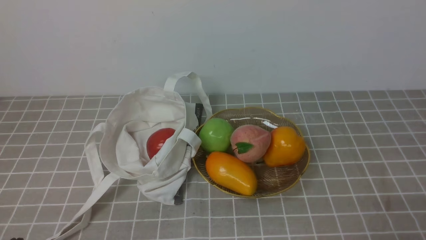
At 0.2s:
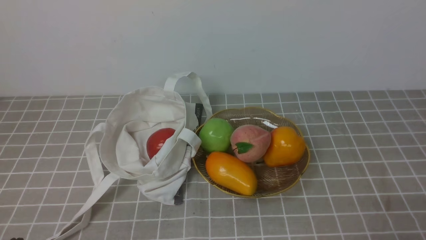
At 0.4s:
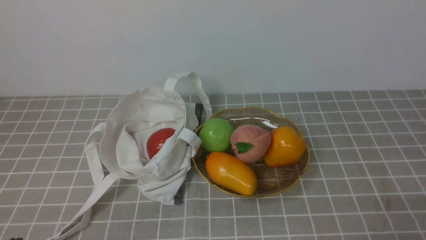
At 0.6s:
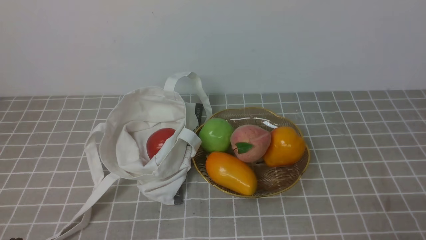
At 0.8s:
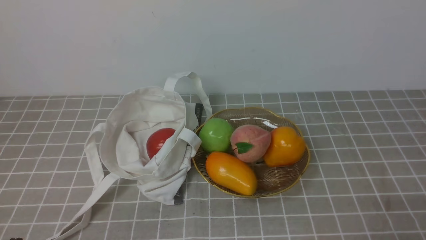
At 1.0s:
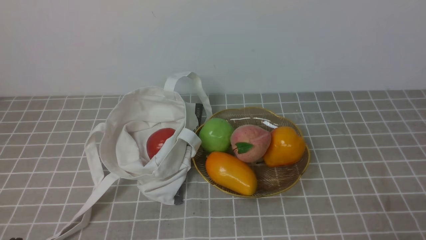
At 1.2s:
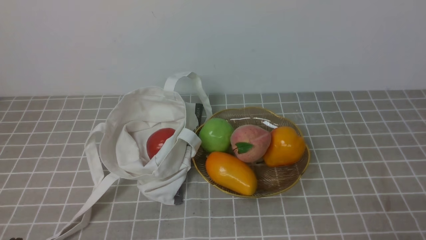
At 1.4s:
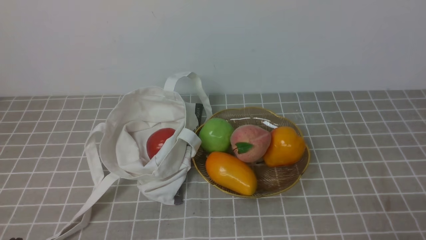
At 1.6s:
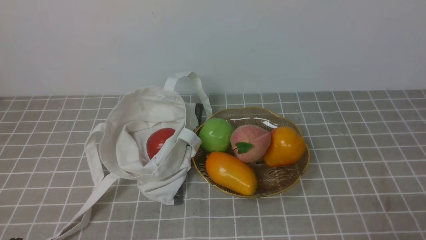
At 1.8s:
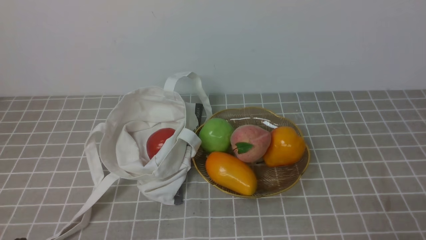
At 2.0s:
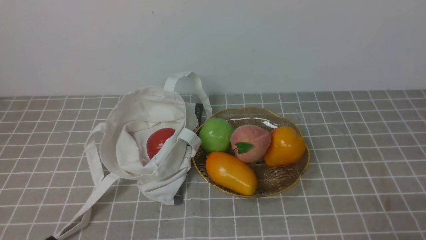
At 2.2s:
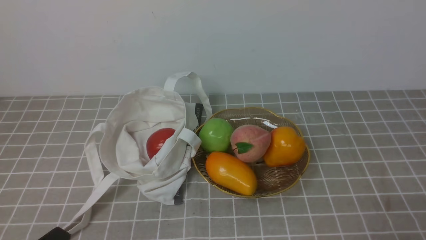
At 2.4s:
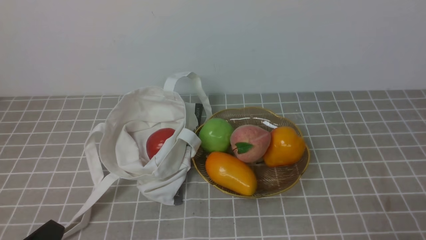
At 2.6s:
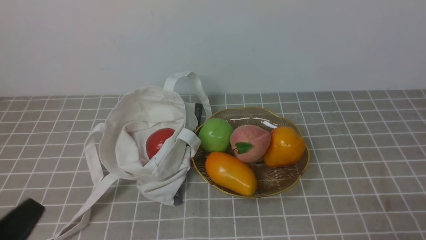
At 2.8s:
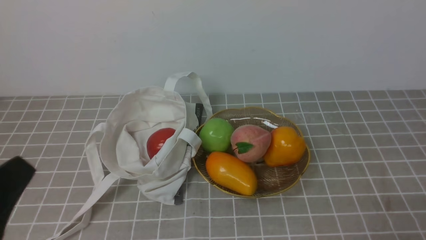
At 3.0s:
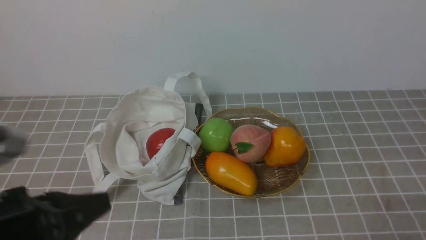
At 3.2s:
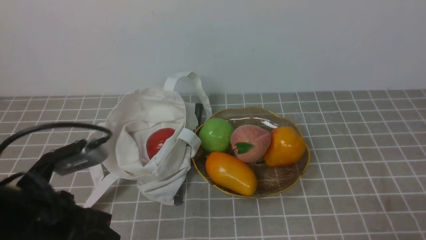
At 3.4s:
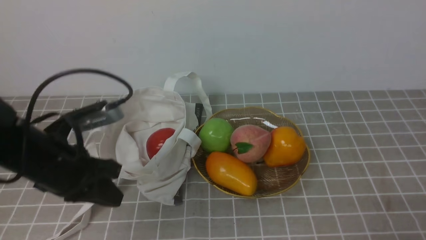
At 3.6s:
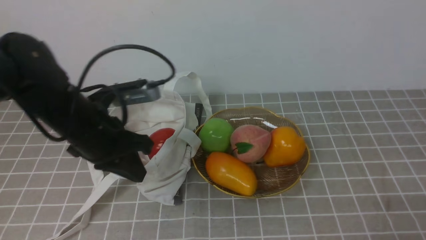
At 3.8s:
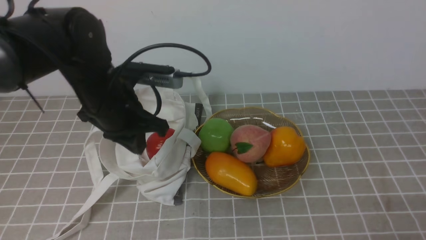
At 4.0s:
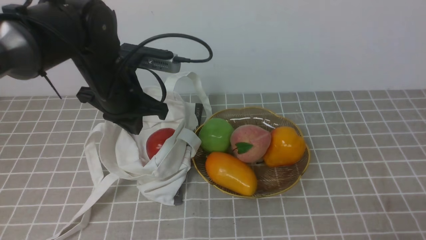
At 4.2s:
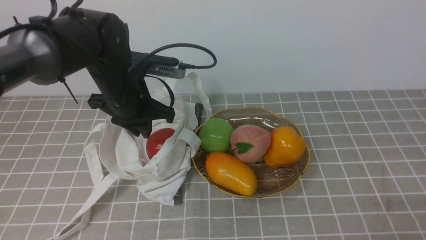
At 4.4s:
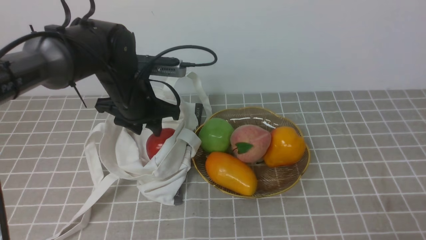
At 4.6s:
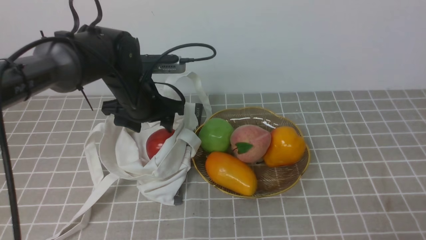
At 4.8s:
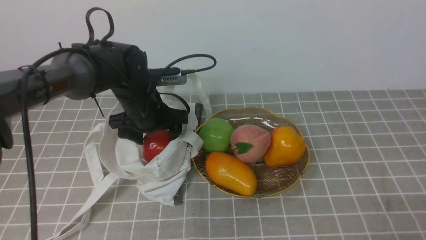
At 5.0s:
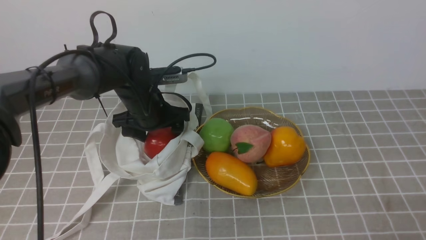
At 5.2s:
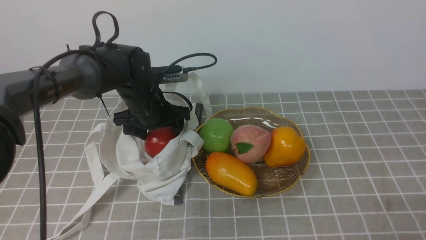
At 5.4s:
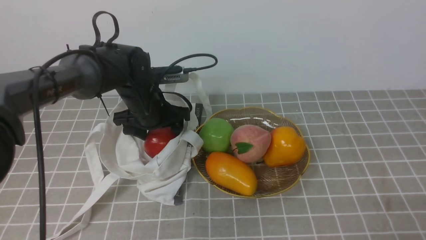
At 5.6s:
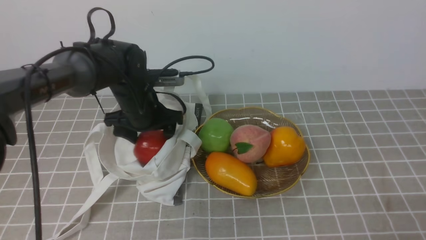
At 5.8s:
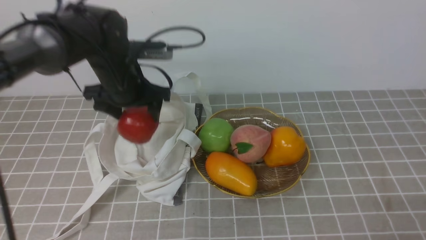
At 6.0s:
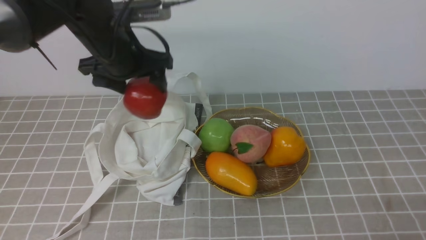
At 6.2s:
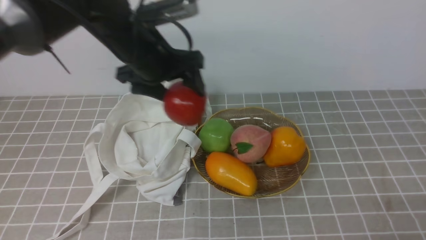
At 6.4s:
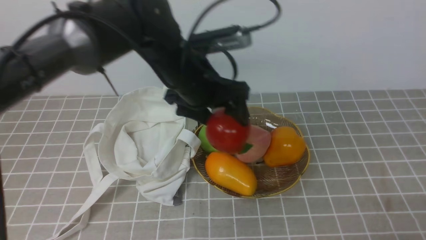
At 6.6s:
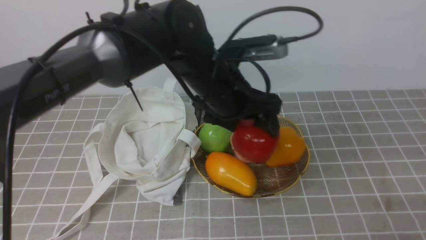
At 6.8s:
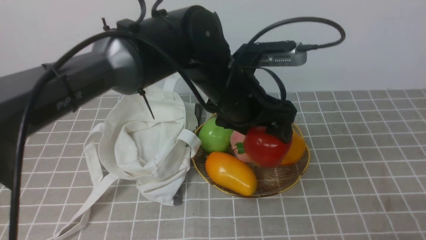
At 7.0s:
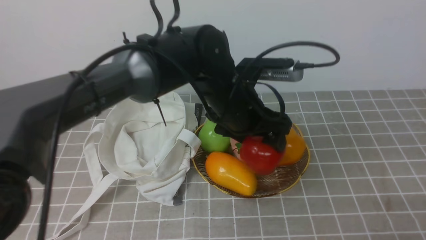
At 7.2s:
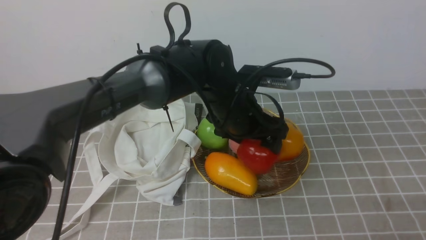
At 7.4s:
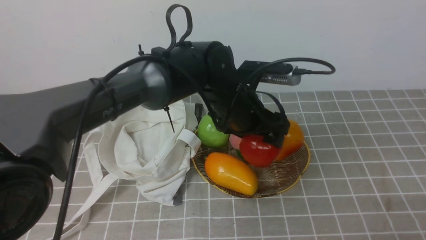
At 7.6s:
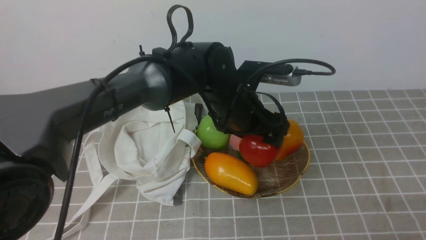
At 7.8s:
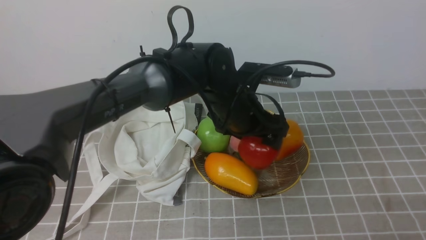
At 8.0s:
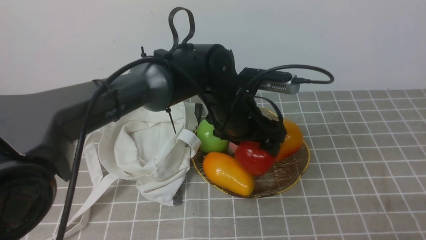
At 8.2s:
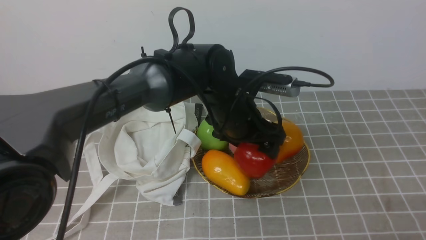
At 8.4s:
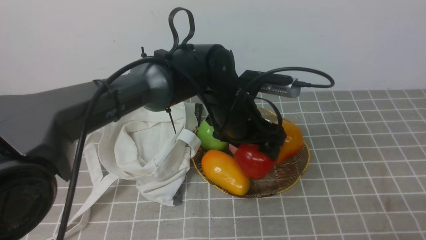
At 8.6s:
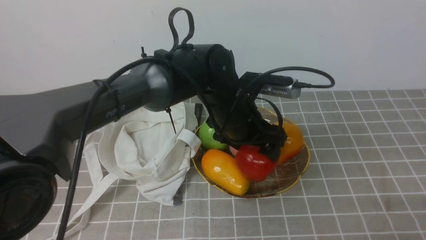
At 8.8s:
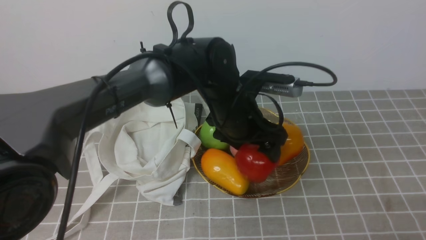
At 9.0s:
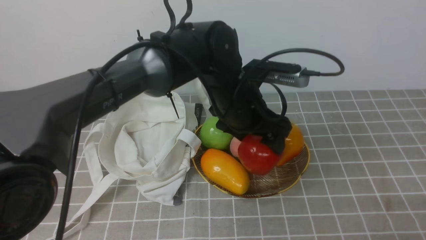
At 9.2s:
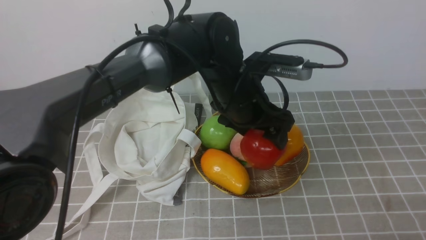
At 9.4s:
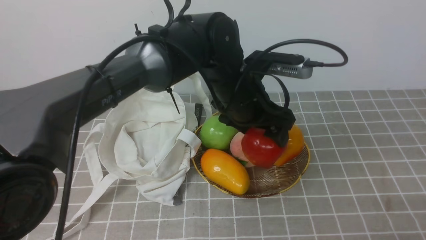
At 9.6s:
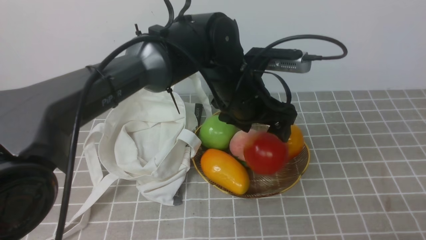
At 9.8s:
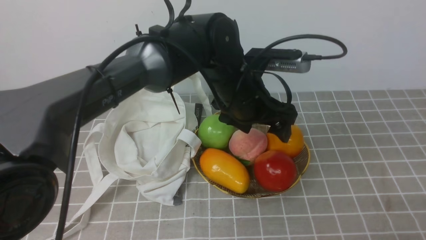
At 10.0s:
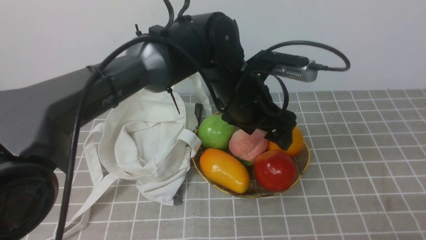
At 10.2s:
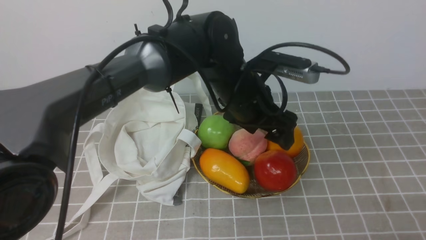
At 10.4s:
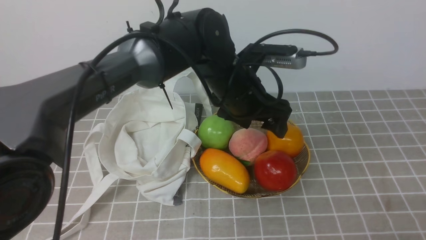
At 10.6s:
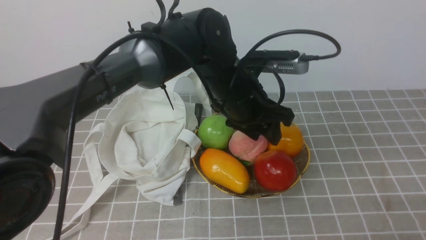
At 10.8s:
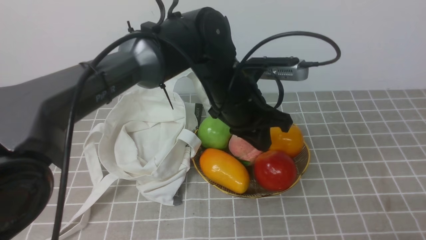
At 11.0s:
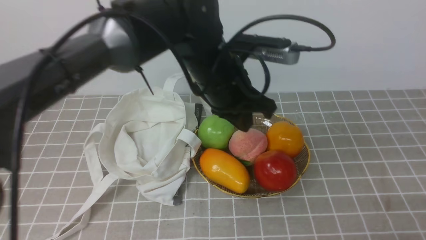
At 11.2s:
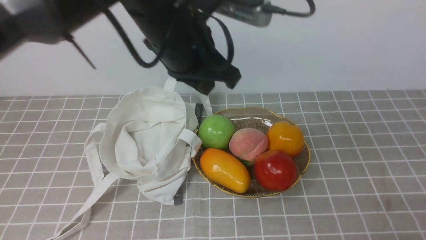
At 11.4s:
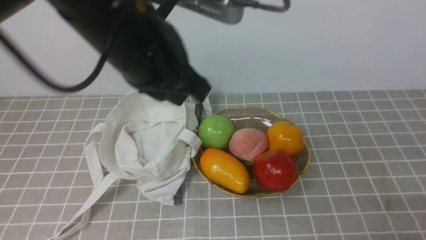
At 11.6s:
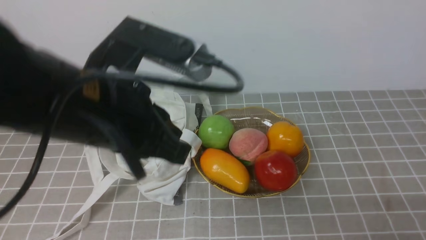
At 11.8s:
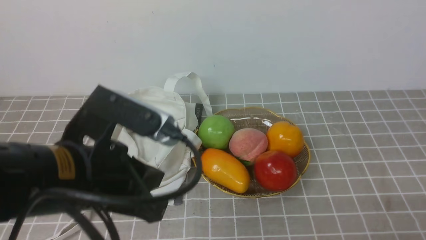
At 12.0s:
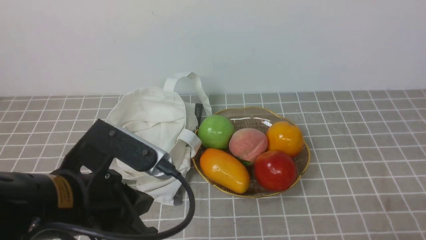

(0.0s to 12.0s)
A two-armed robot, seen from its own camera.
Step, 0.0s - 5.6s: use the left arm to grab an apple from the bag.
Step, 5.8s - 10.0s: use the left arm to put the apple into the empty plate on the right.
1.6s - 3.0s: The left gripper travels upward by some 10 cm.
3.0s - 4.4s: The left gripper travels forward by about 30 cm.
4.4s - 6.0s: The left gripper opens.
6.0s - 7.6s: The left gripper goes some 15 cm to the right.
7.6s - 10.4s: There are only small adjustments of the grippers.
10.4s - 12.0s: The left gripper heads backward and to the left, covering approximately 25 cm, and closes up.

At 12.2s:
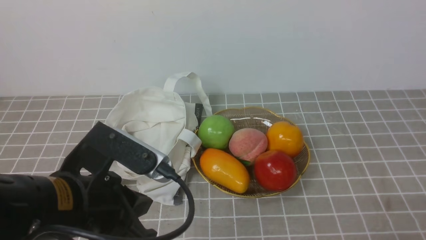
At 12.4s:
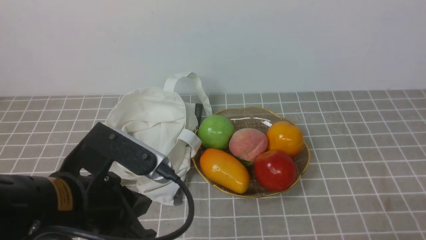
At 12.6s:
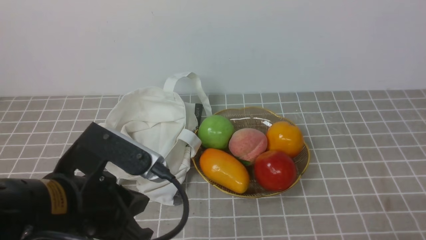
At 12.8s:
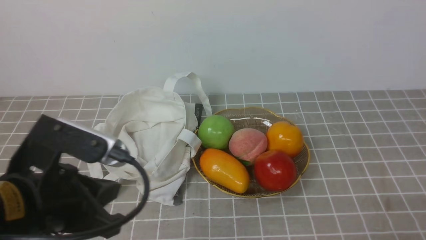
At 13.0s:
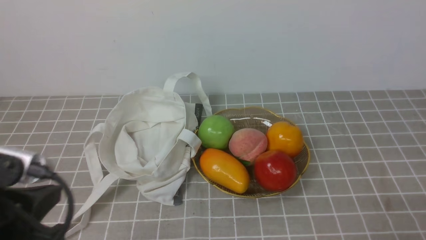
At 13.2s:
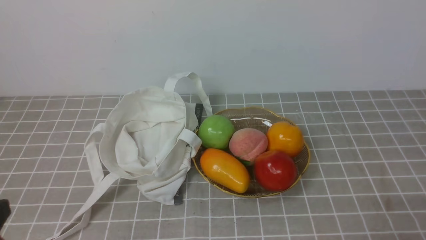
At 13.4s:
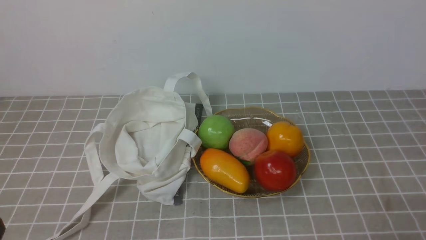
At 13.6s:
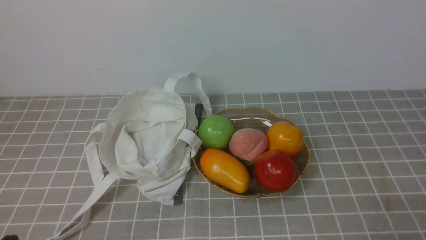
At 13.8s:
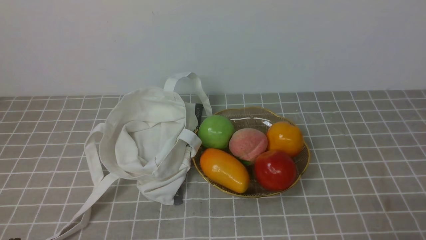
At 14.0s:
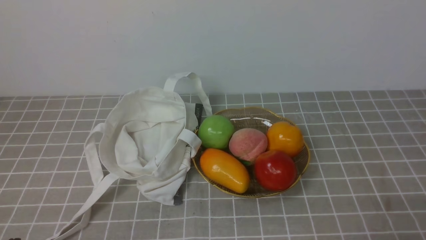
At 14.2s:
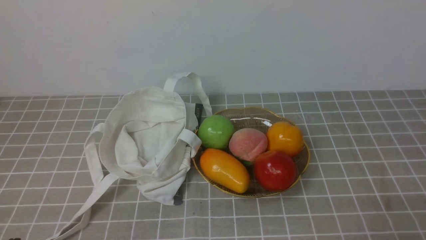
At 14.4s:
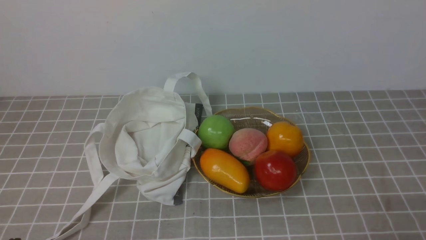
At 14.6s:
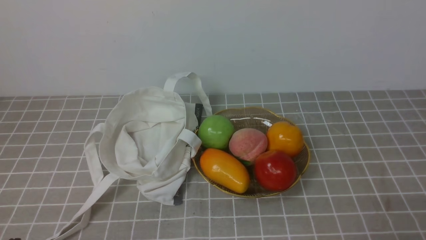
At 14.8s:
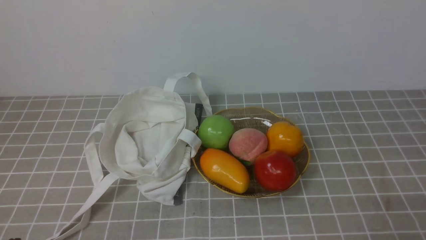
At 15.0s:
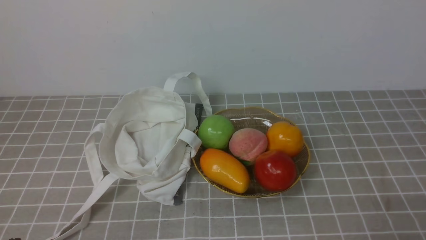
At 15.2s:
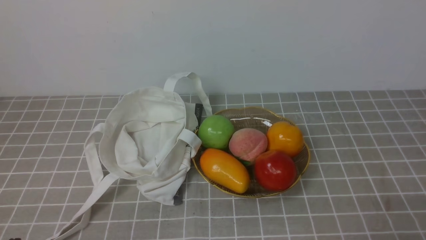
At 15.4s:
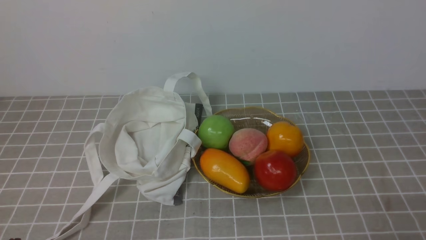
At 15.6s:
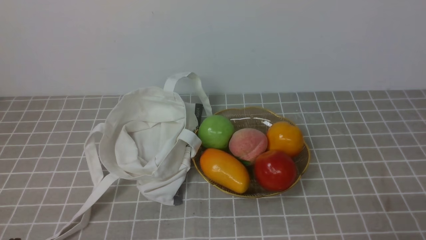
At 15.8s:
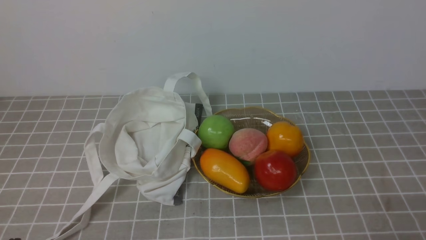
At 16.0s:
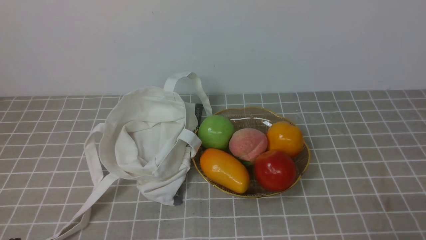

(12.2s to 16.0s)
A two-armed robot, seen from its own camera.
12.2s - 13.4s: The left gripper travels to the left and backward by roughly 15 cm.
14.8s - 16.0s: The two grippers keep their place.

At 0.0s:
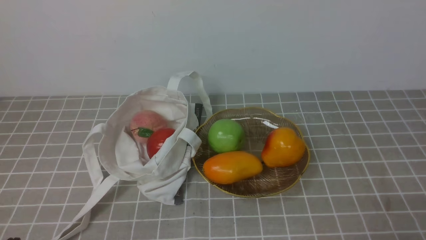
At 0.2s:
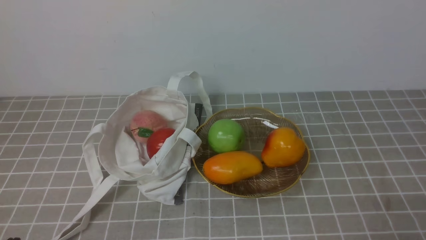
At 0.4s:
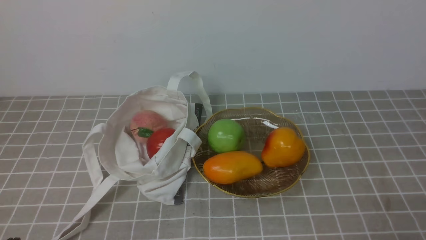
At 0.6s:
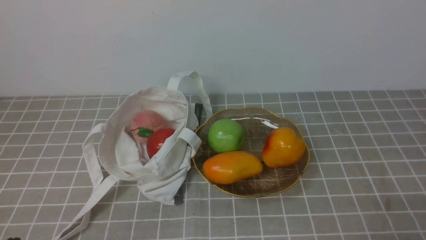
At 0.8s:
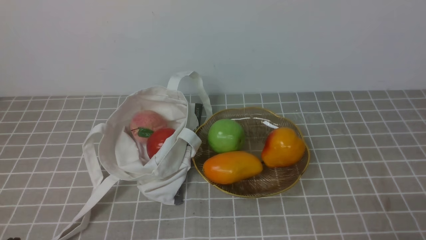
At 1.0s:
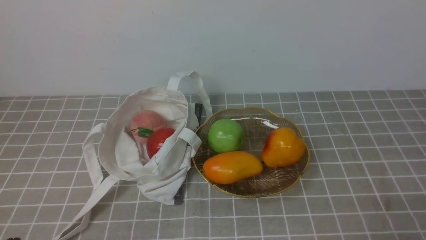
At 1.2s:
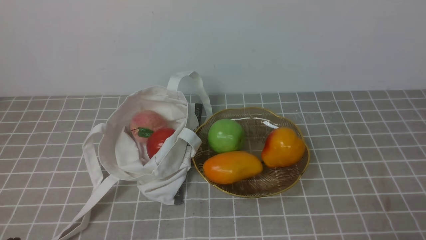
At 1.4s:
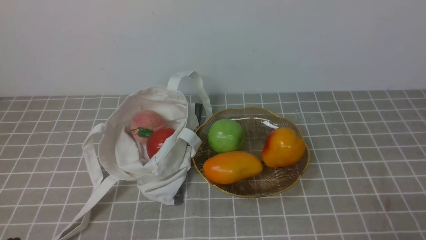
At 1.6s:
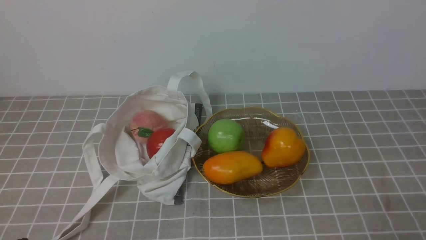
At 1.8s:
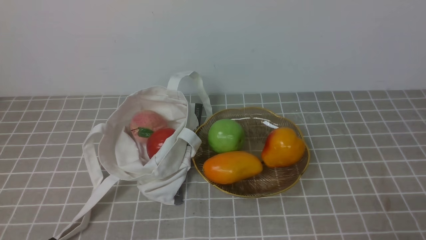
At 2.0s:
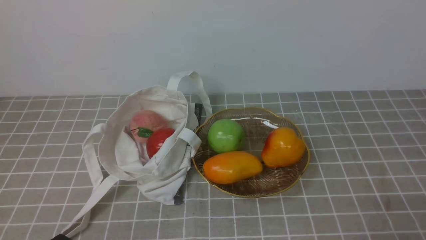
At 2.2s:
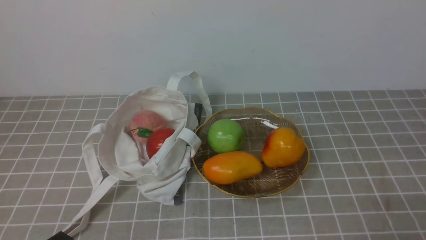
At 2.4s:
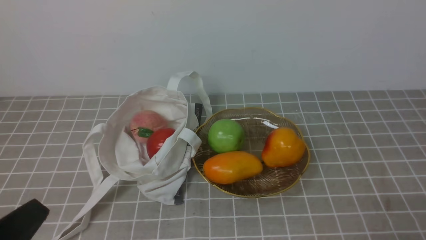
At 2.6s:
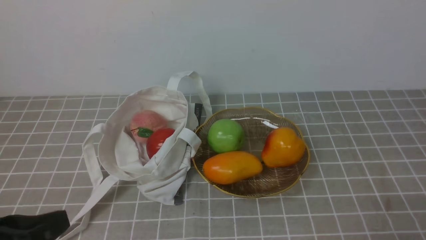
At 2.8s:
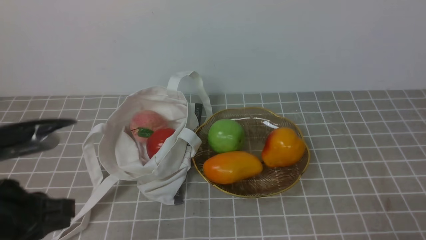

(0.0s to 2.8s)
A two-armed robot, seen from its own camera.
0.0s - 1.4s: The two grippers keep their place.
1.4s - 2.8s: The left gripper heads upward and forward, covering about 15 cm.
